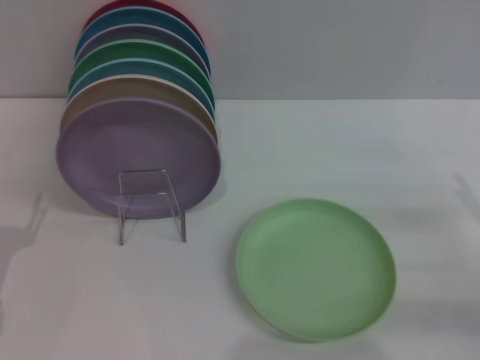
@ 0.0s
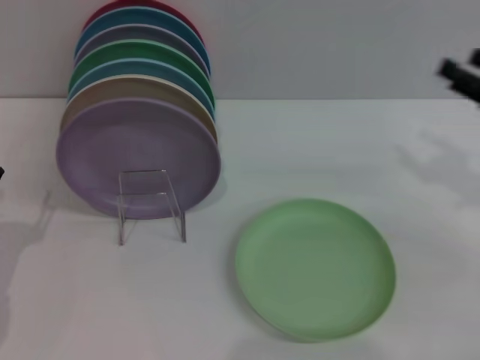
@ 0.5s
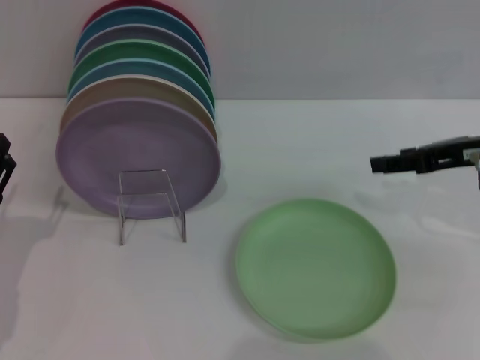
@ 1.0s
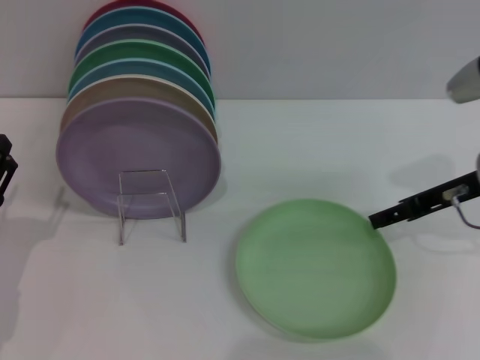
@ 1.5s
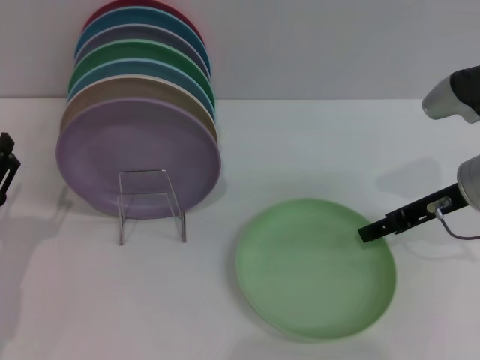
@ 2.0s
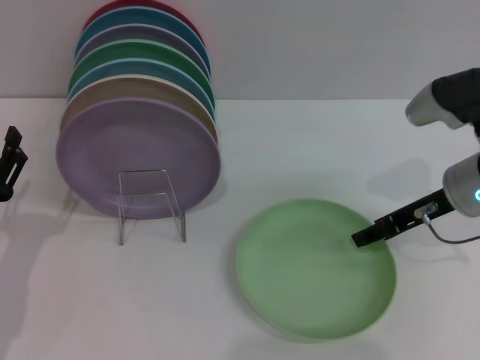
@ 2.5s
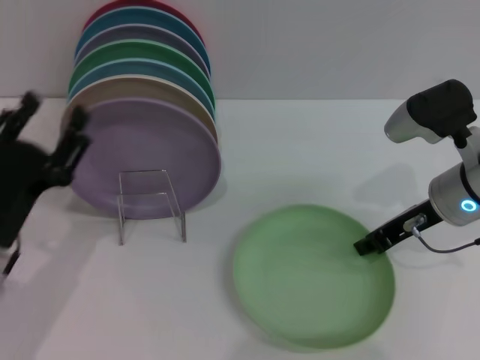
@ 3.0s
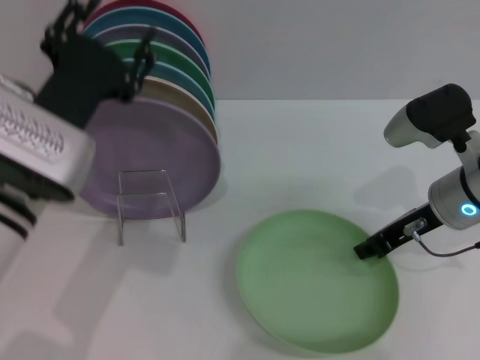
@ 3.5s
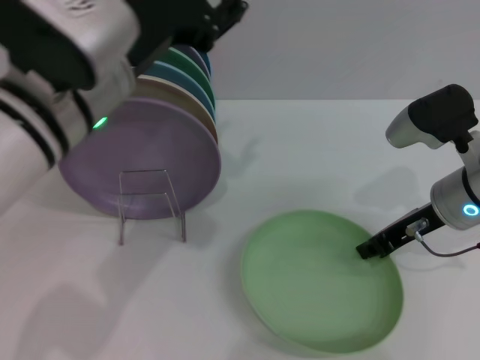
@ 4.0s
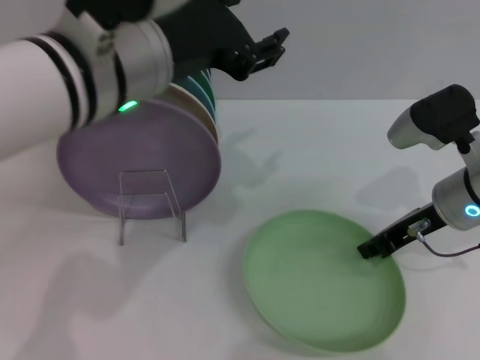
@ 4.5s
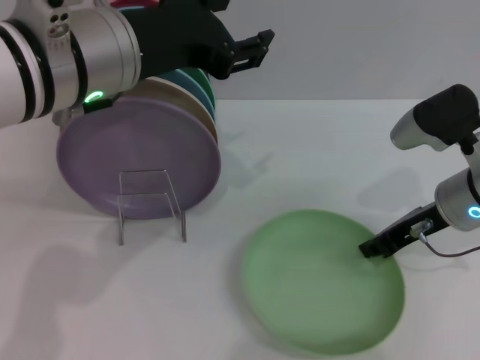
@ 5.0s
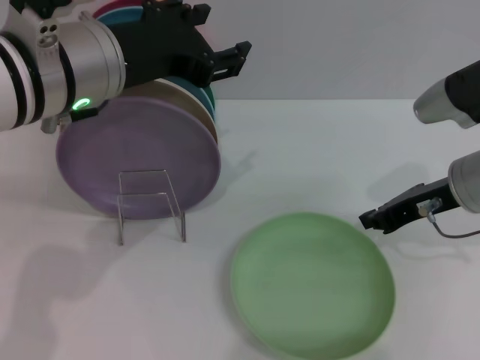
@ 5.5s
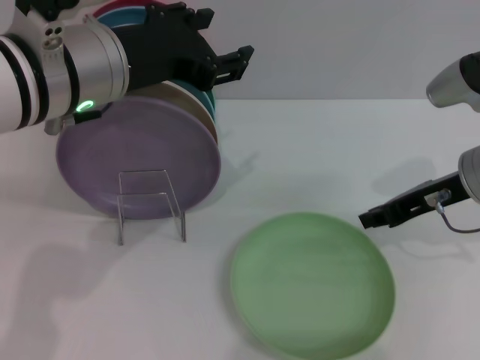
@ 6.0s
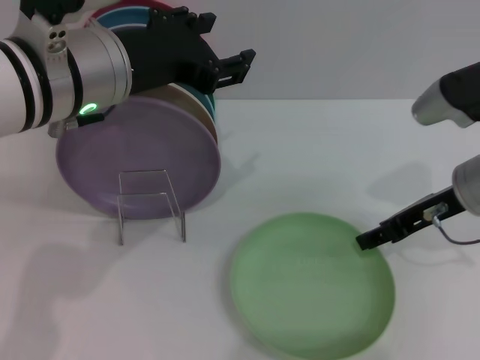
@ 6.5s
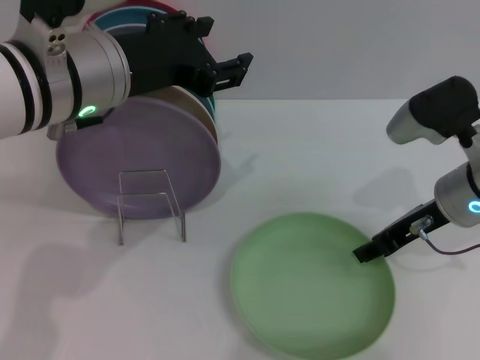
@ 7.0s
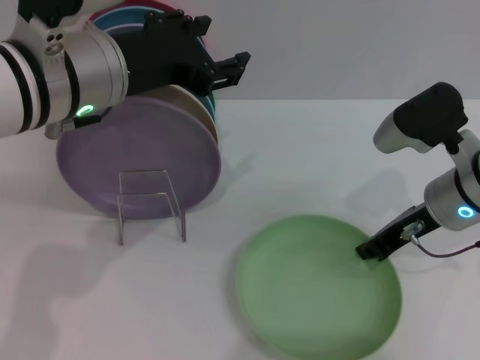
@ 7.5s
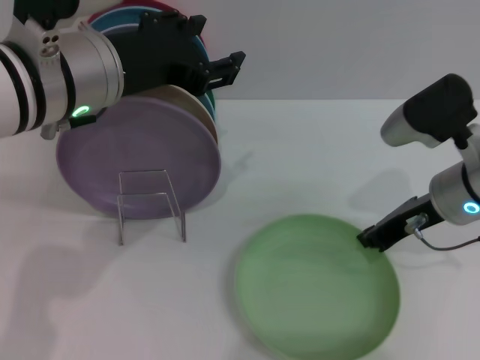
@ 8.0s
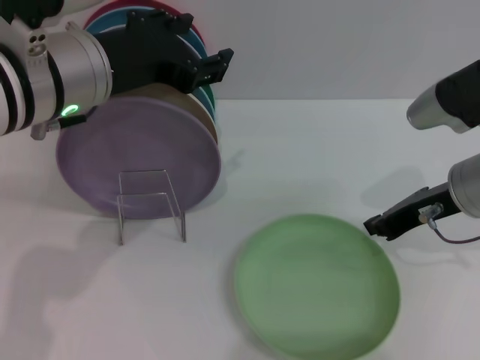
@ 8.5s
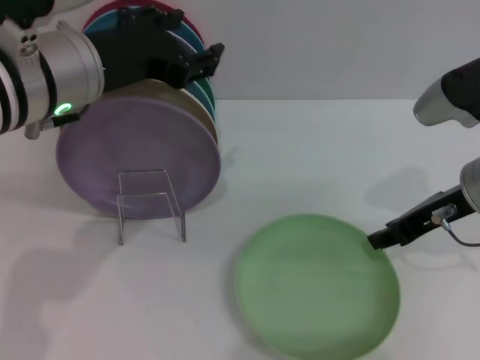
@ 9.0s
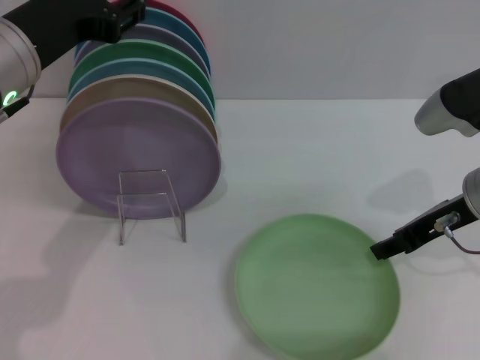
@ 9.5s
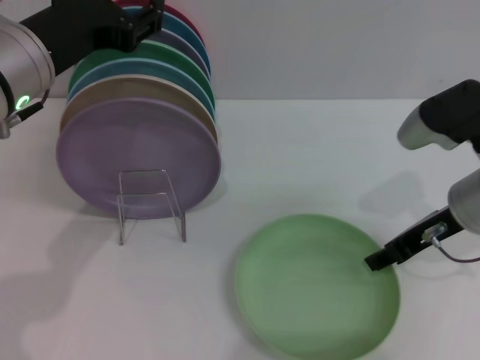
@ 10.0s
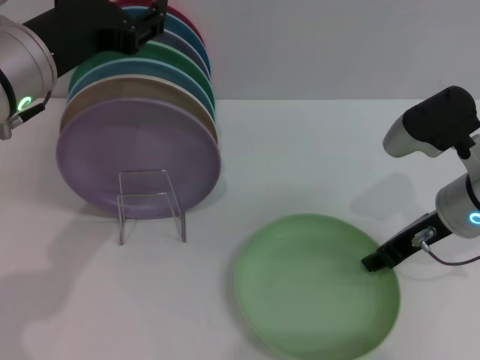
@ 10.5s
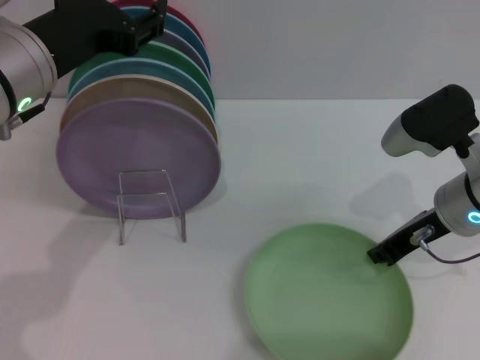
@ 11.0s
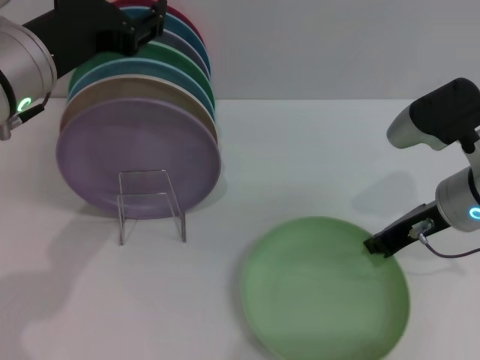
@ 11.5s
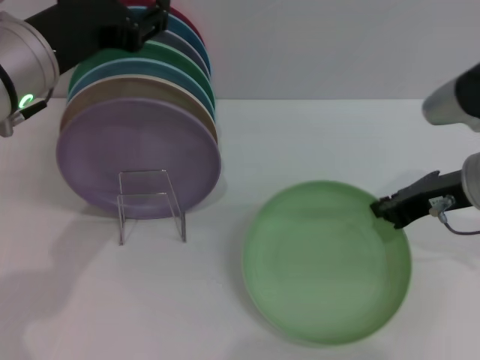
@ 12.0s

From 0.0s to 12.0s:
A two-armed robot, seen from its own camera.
Task of the whole recording: Grip the plate with one hand, pass it to the other, then set it on the shelf.
From 0.0s to 2.0s: The right gripper travels forward, to the left and upward by some 15 cm.
From 2.0s to 4.0s: The right gripper closes its fingers. The left gripper moves upward and to the right, approximately 25 cm.
From 6.0s to 8.0s: The right gripper opens and closes again.
From 8.0s to 10.0s: The right gripper opens.
From 10.0s to 12.0s: The right gripper closes.

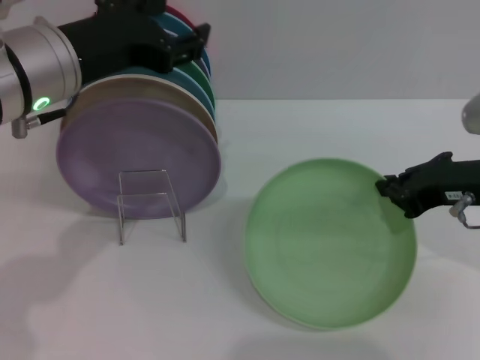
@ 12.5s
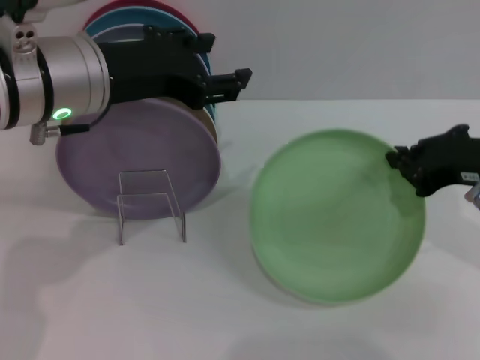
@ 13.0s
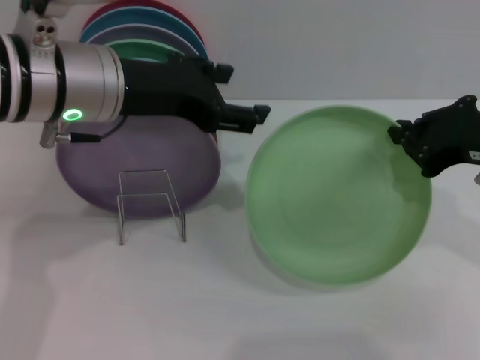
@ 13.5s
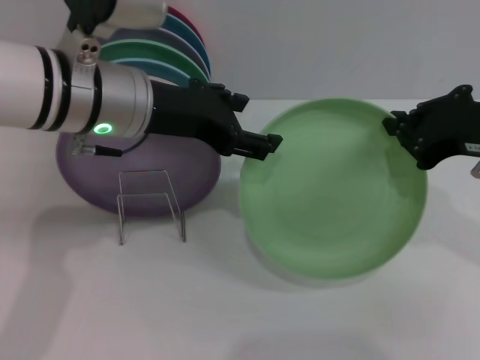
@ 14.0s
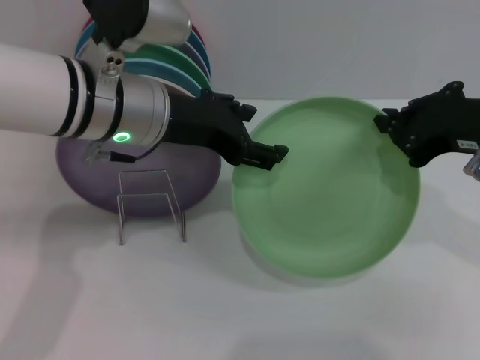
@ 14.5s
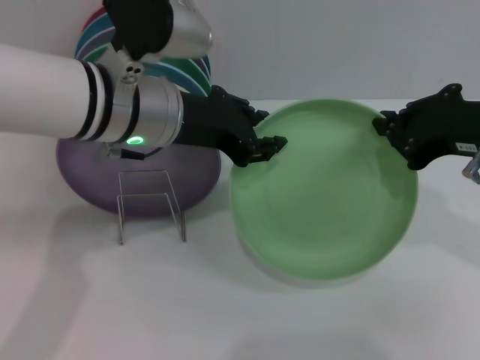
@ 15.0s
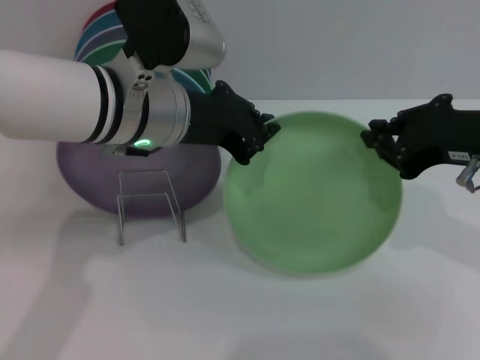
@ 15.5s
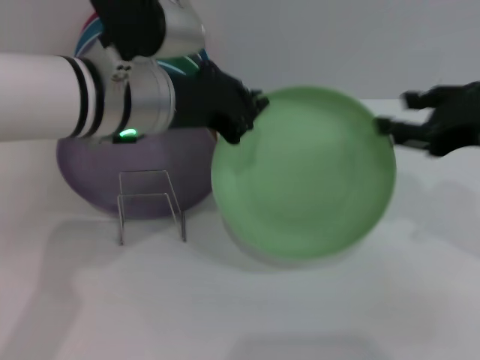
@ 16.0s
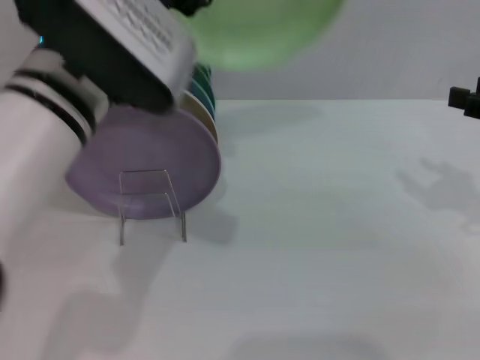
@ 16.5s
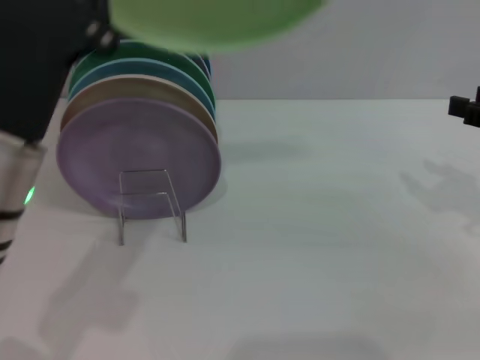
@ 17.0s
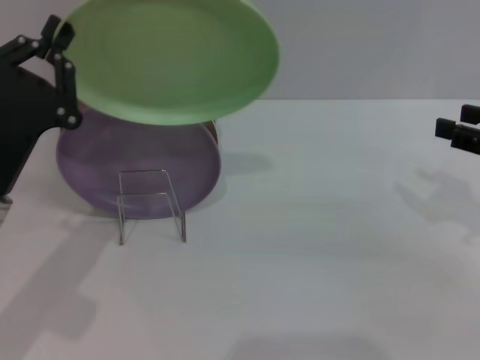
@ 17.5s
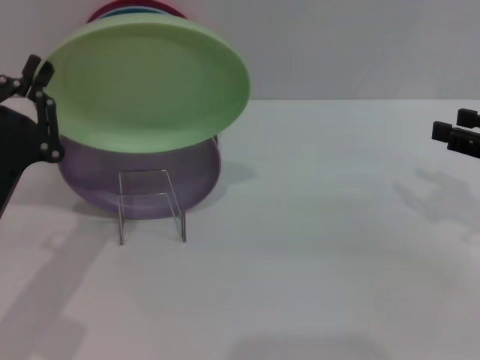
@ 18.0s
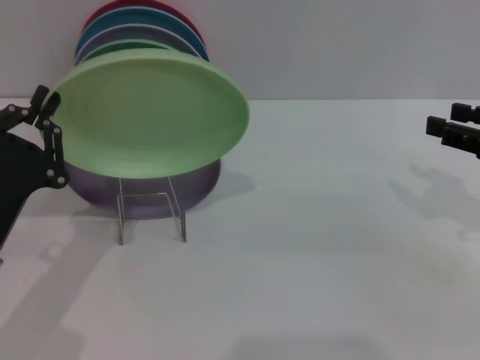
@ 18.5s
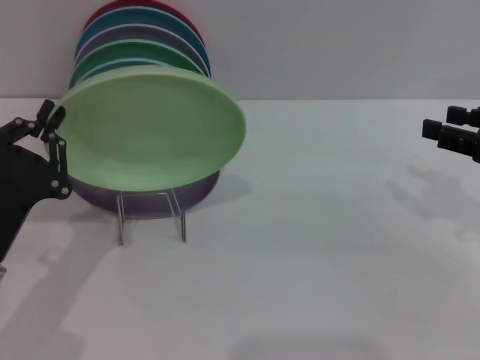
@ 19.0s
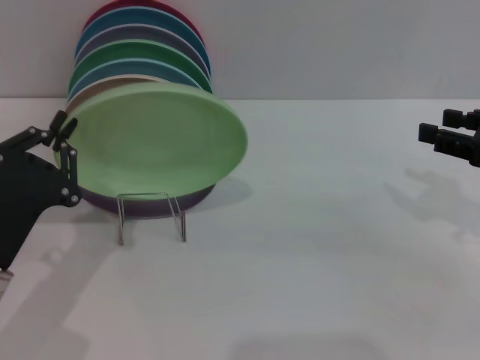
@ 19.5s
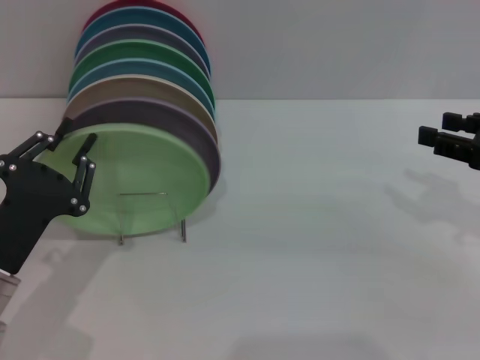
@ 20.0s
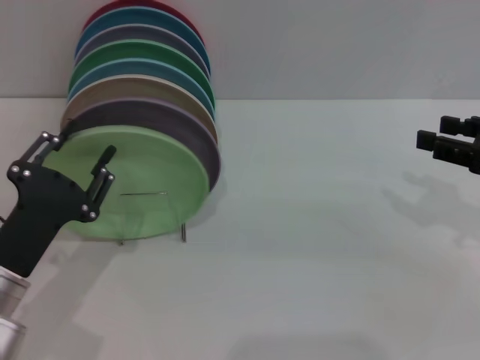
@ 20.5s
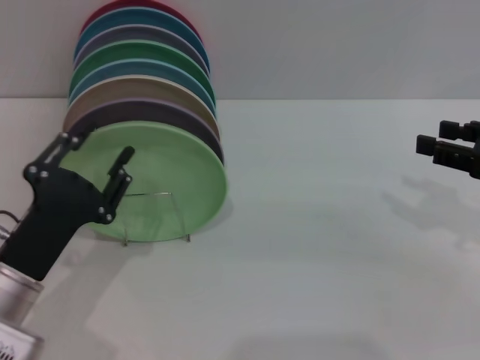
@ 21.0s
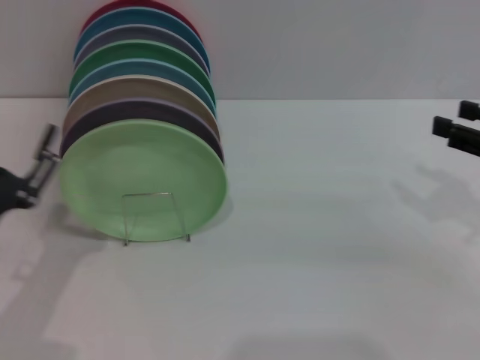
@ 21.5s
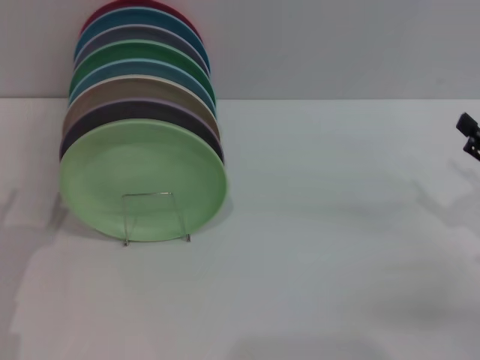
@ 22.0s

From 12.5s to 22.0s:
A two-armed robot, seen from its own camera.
Task of the whole recording: Grip the plate with one hand, pass it to the other, then set it on the shelf.
Step, from 13.5s to 16.0s: Pass the plate from the right gripper to the left gripper.
Step, from 16.5s to 21.0s: Place the plate on the shelf with the left gripper.
From 12.5s to 14.5s: The left gripper heads to the right, covering some 5 cm. Meanwhile the right gripper moves upward, roughly 5 cm.
From 14.5s to 16.5s: The left gripper shifts by approximately 5 cm, and closes; the right gripper goes about 10 cm to the right, and opens its fingers.
From 16.5s to 18.0s: The left gripper heads downward, to the left and backward, covering about 20 cm.
From 20.0s to 22.0s: The right gripper shifts approximately 10 cm downward. The left gripper ends up roughly 5 cm from where it was, and opens.
